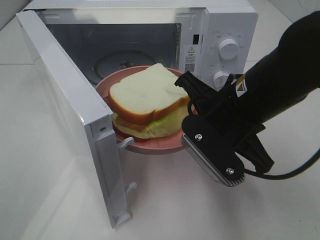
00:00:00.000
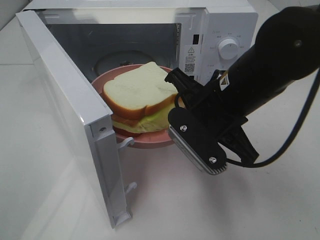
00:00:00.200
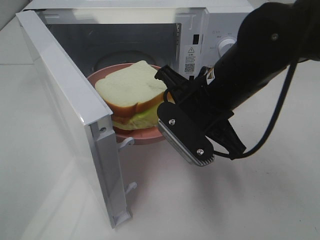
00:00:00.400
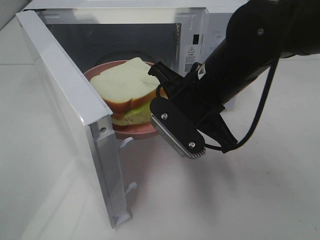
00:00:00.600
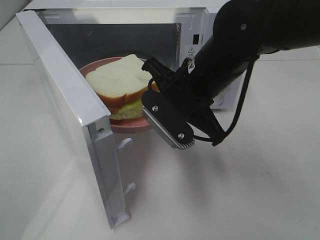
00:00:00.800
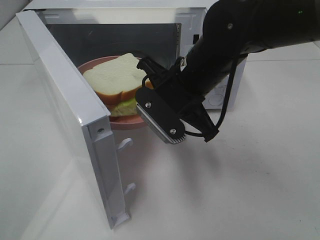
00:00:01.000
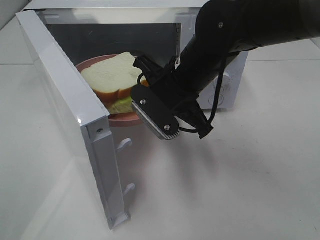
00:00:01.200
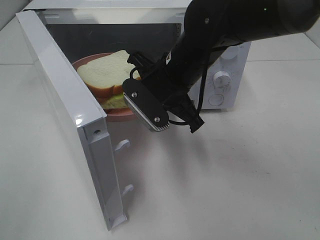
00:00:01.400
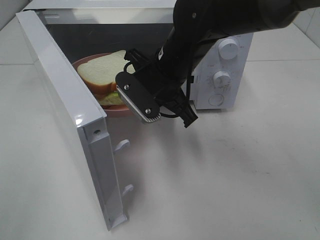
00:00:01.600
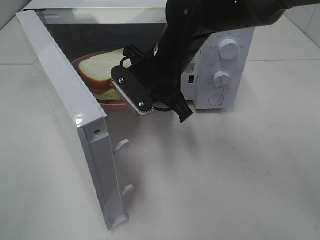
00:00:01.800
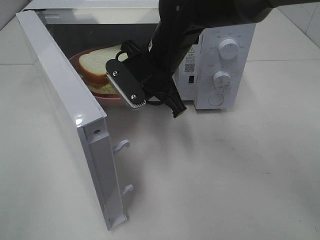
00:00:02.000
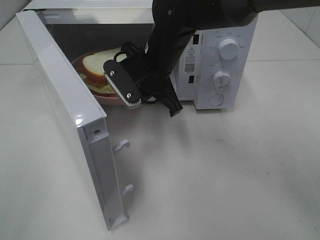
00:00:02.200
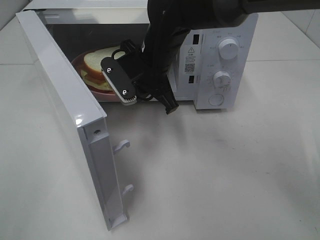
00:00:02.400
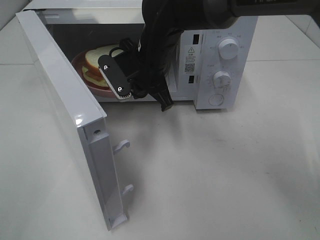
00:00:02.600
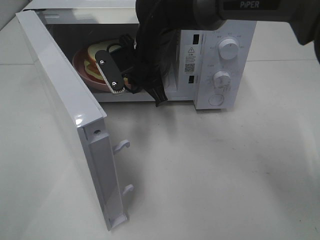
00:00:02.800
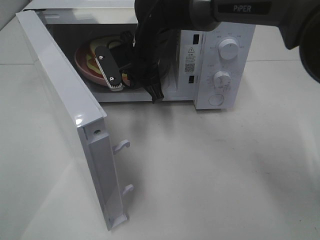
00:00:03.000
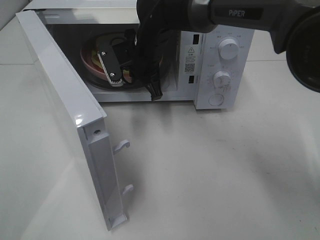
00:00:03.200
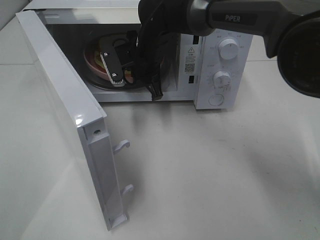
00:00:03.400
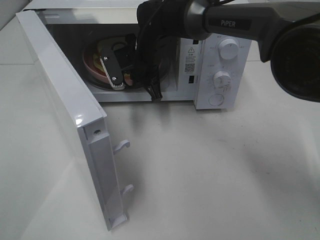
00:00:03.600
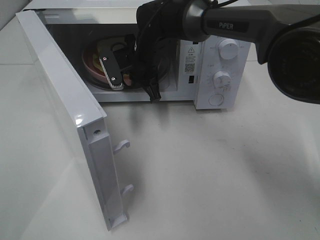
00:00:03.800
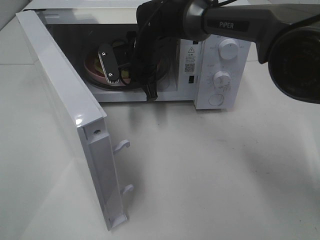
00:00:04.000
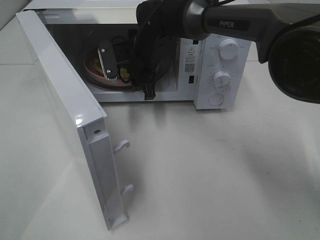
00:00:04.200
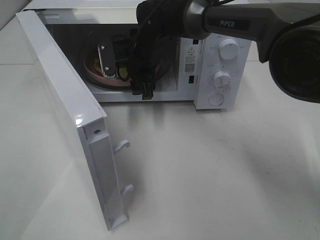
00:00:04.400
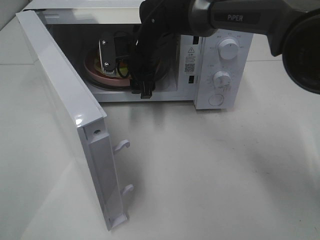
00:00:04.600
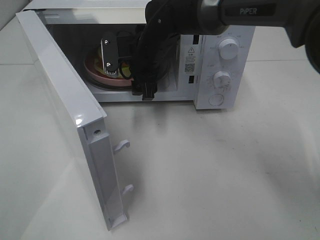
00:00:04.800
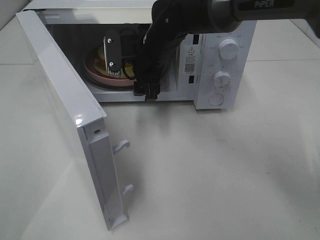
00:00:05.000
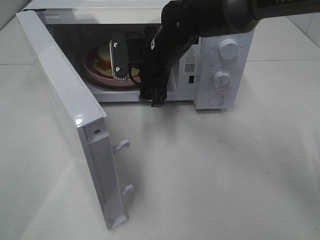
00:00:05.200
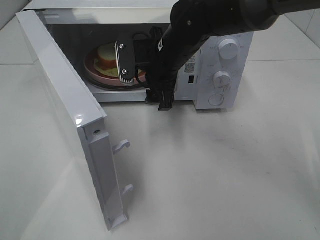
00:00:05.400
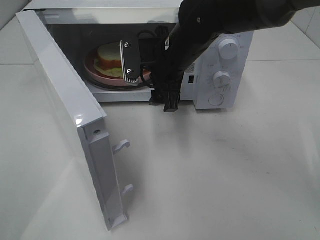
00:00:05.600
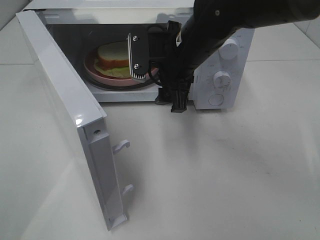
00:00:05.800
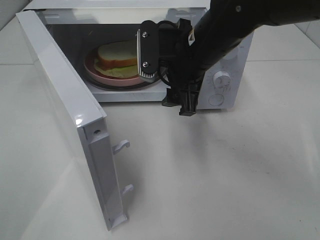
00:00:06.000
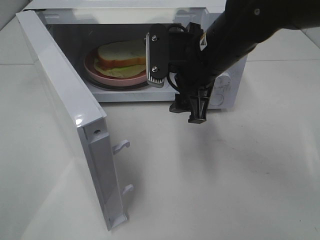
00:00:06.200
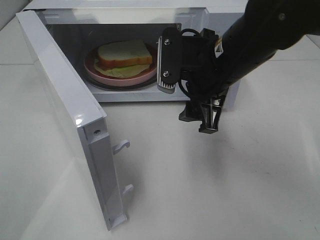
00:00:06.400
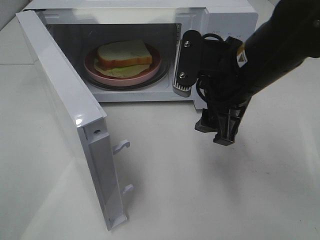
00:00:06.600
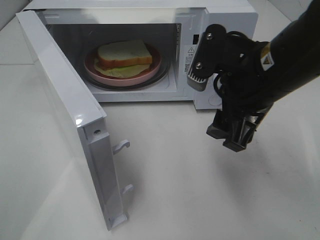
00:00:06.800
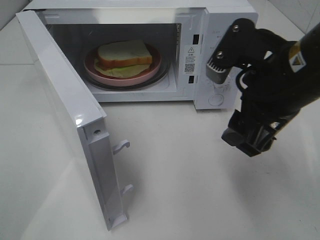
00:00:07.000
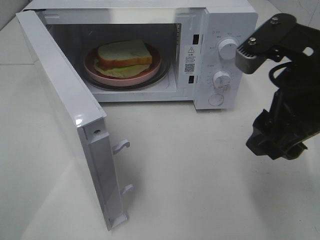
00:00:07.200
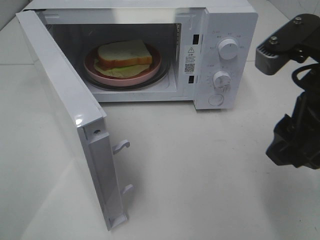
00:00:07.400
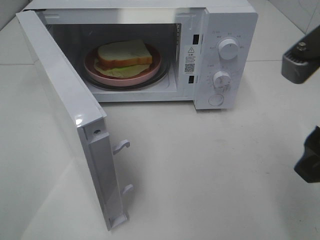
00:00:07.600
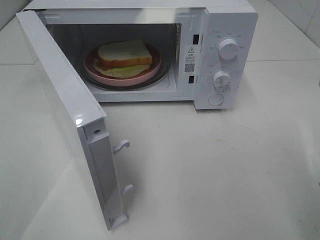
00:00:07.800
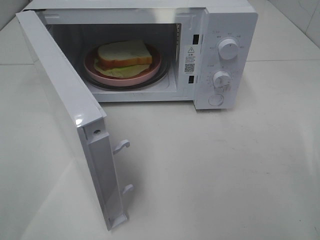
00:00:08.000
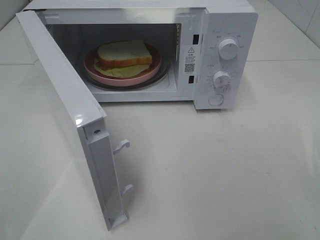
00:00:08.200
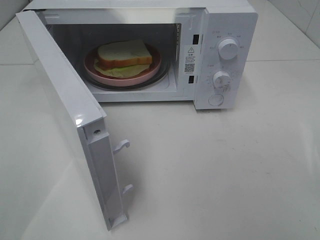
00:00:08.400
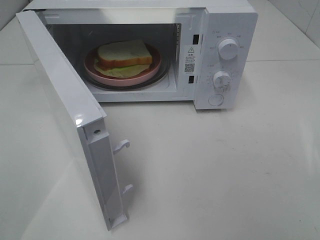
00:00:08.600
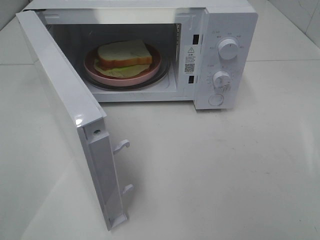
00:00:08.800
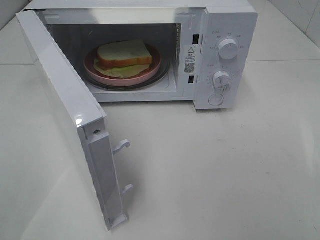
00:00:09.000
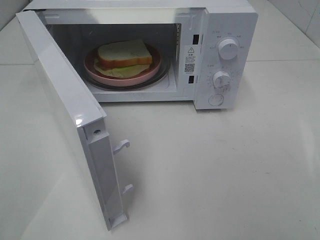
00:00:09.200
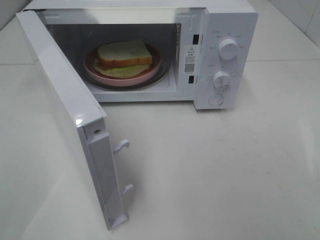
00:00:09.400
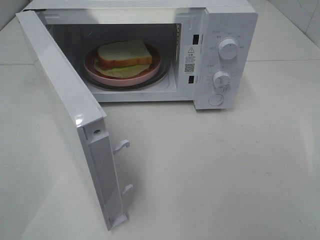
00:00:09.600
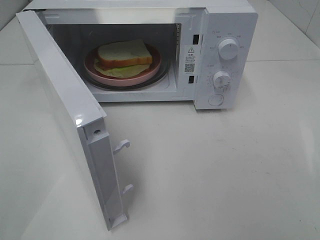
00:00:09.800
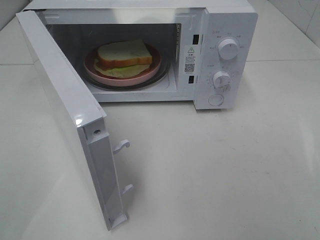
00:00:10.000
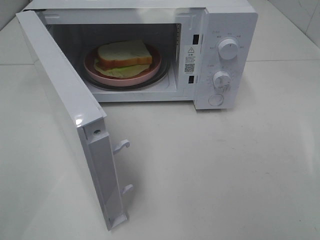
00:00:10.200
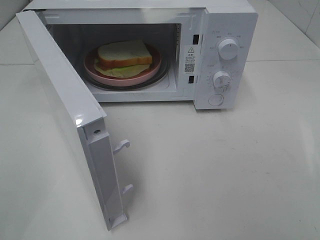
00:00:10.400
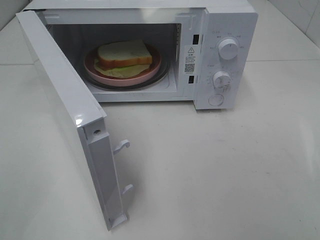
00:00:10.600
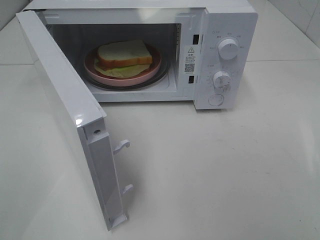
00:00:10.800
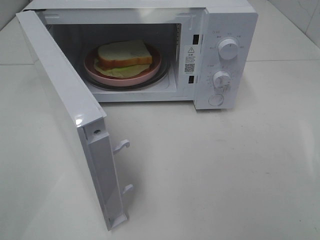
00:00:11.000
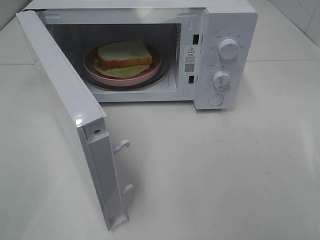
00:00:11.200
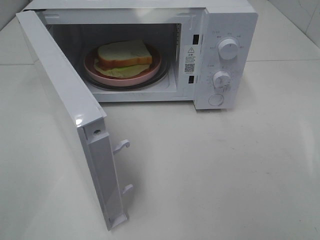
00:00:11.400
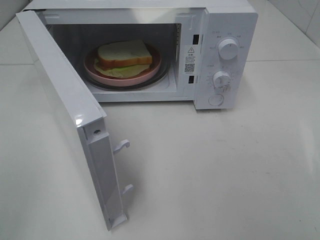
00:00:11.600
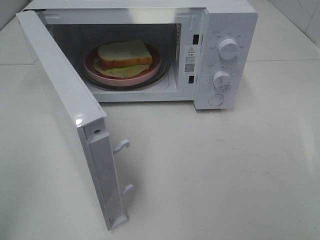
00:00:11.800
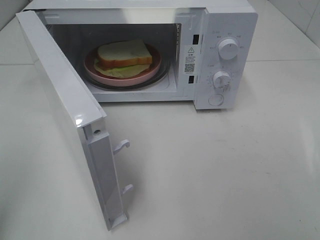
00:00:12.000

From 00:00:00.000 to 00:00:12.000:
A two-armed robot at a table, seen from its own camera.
Task of the whole recording: Heat Sandwich.
Step, from 00:00:00.000 to 00:00:04.400: Right hand: place the plate in the microwave.
From 00:00:00.000 to 00:00:01.600: The right gripper heads forward and to the left, covering some 15 cm.
From 00:00:01.600 to 00:00:03.000: The right gripper moves forward, approximately 10 cm.
From 00:00:03.000 to 00:00:04.400: The right gripper opens.
From 00:00:04.400 to 00:00:06.000: The right gripper travels backward, to the right and upward by approximately 15 cm.
From 00:00:06.000 to 00:00:07.600: The right gripper goes about 20 cm backward and to the right.
From 00:00:07.600 to 00:00:09.000: The right gripper is displaced backward and to the right by roughly 20 cm.
From 00:00:09.000 to 00:00:10.400: Both grippers stay about where they are.
From 00:00:10.400 to 00:00:12.000: The left gripper travels forward by approximately 5 cm, and closes its fingers.

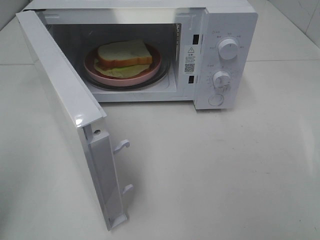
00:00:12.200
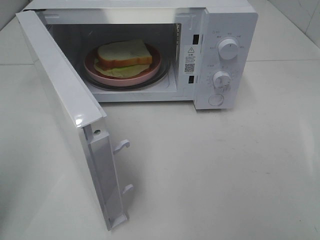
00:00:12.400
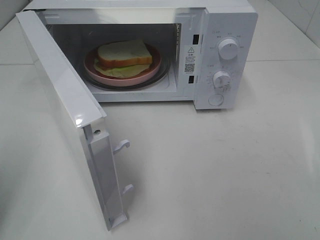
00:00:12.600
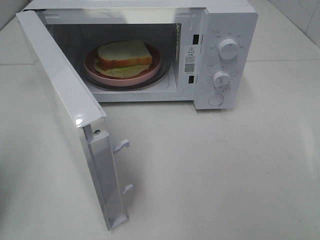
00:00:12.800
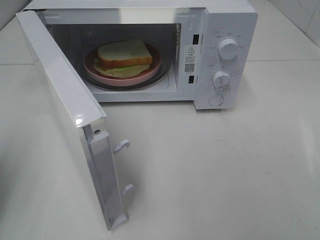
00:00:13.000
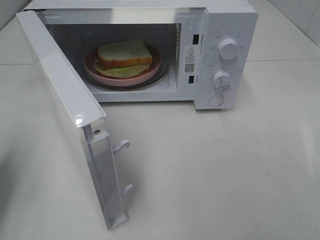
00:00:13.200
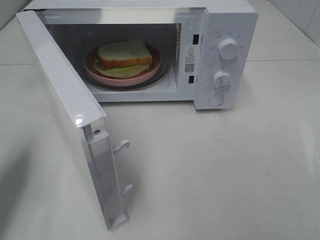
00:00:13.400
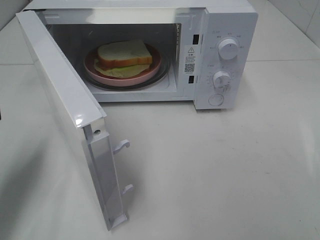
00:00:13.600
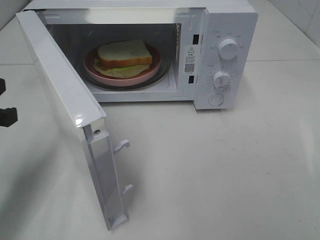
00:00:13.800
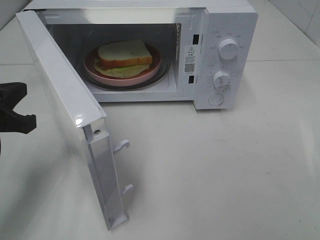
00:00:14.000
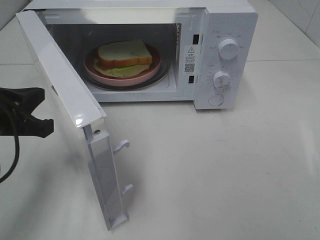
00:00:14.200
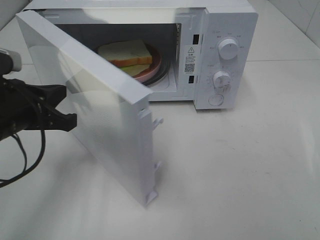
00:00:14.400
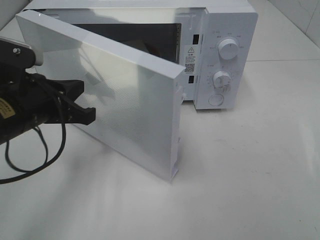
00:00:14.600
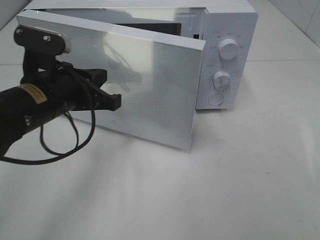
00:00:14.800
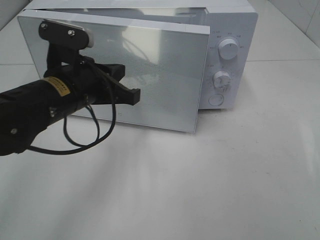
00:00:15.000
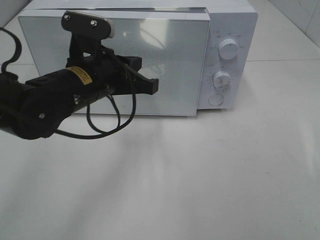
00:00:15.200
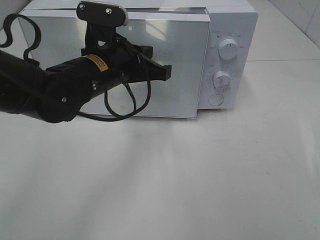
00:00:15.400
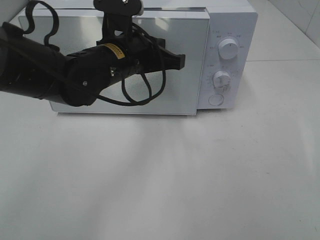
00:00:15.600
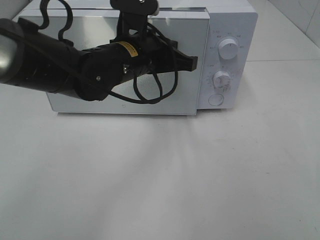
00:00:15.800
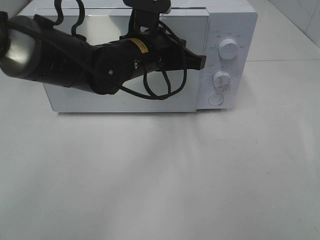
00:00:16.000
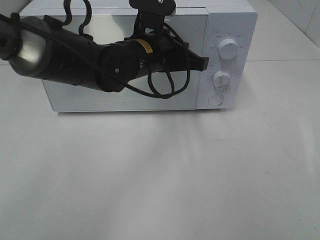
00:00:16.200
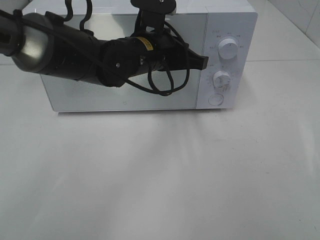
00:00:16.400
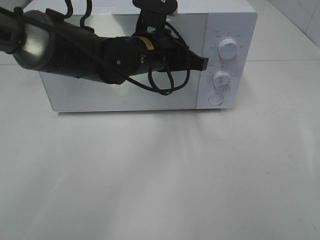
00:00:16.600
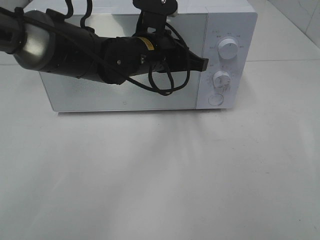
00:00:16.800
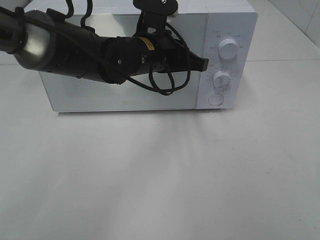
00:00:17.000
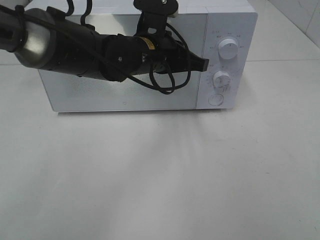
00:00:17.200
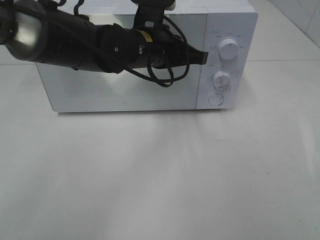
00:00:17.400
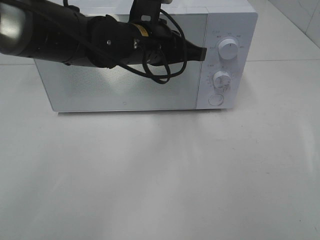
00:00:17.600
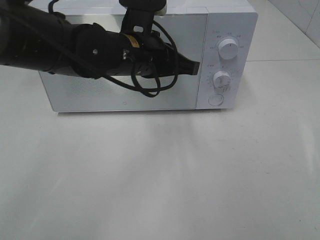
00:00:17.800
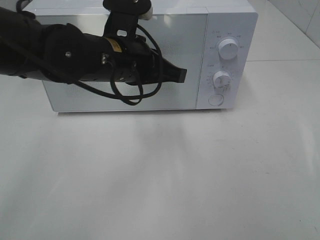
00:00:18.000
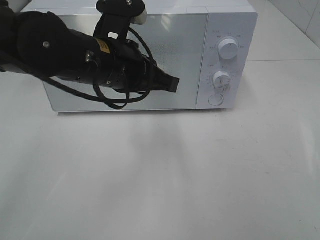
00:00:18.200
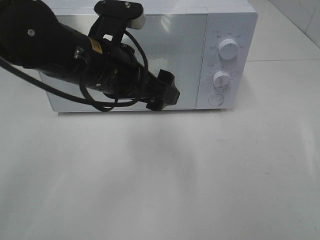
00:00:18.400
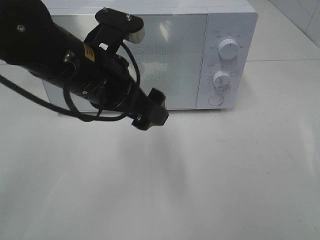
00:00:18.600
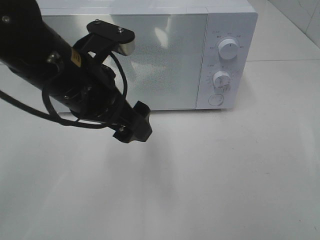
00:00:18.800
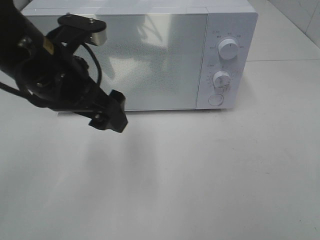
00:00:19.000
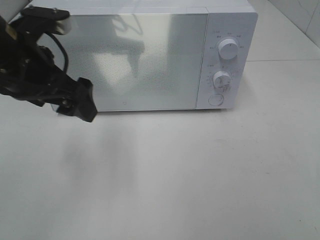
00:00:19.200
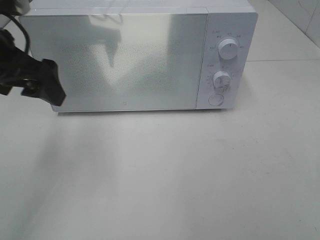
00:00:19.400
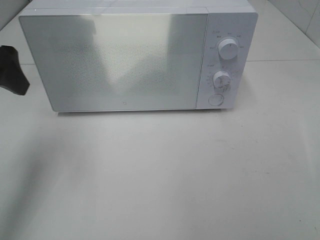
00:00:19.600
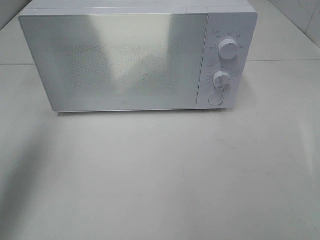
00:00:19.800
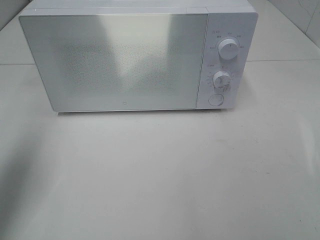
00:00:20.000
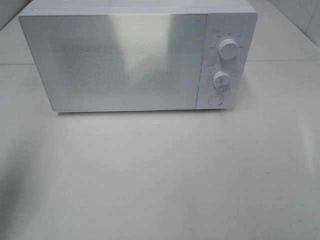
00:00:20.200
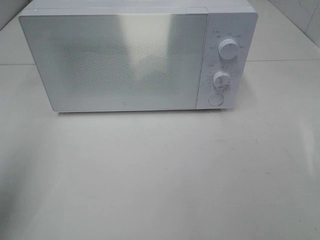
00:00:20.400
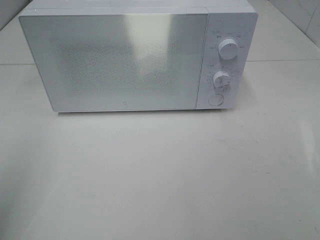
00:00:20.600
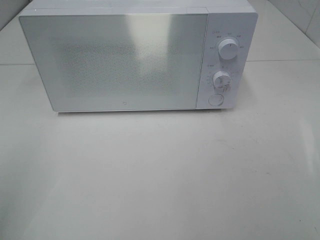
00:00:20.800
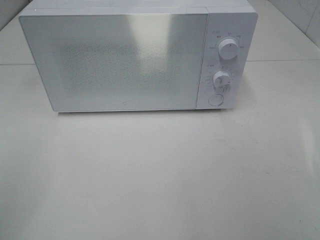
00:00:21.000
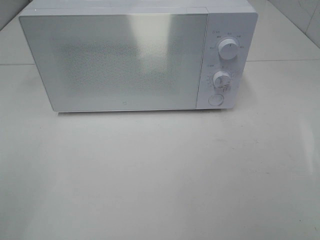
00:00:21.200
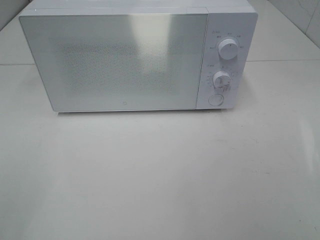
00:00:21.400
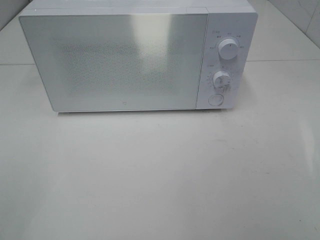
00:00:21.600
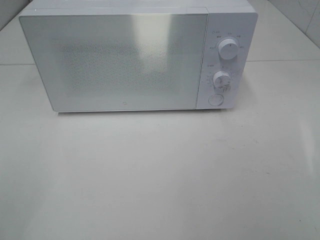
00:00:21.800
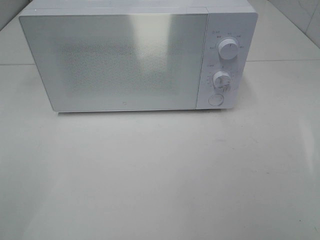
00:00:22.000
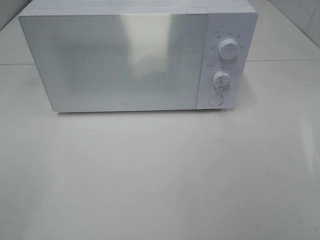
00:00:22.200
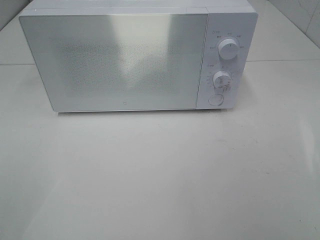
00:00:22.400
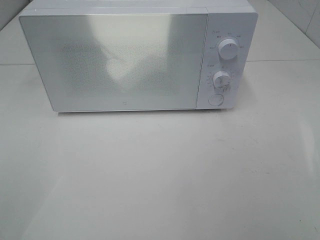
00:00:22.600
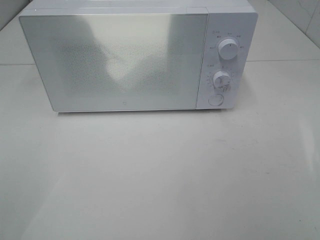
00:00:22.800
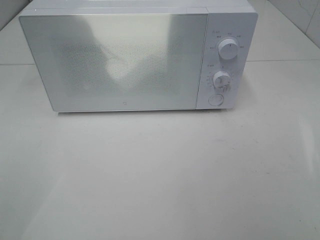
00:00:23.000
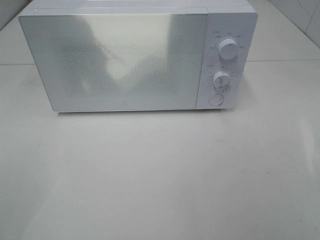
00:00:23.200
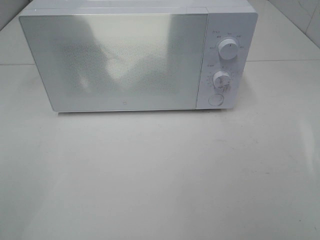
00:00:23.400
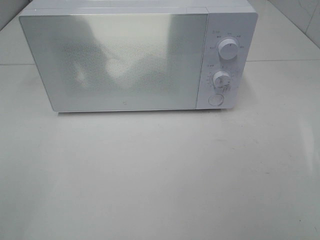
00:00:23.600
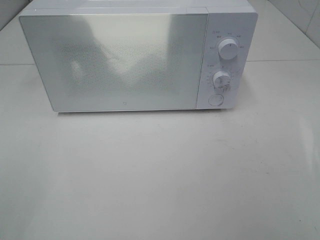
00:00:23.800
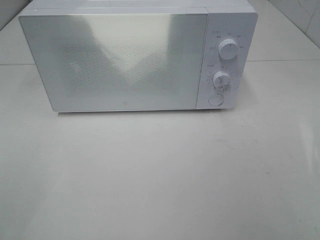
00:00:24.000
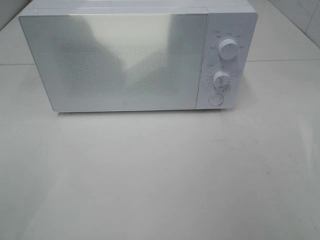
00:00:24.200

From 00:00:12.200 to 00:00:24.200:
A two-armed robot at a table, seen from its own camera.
Task of the whole recording: Heat Sandwich.
Step, from 00:00:12.200 to 00:00:17.600: Left hand: close the microwave door.
From 00:00:12.200 to 00:00:13.800: The left gripper is displaced forward, downward and to the right by approximately 15 cm.
From 00:00:13.800 to 00:00:15.200: The left gripper travels to the right and forward by approximately 20 cm.
From 00:00:15.200 to 00:00:16.600: The left gripper shifts about 10 cm to the right and forward.
From 00:00:16.600 to 00:00:18.200: The left gripper travels backward by roughly 10 cm.
From 00:00:18.200 to 00:00:19.800: The left gripper moves to the left, some 25 cm, and opens its fingers.
From 00:00:19.800 to 00:00:21.200: The left gripper goes some 25 cm backward.
From 00:00:21.200 to 00:00:22.600: The grippers make only small movements.
